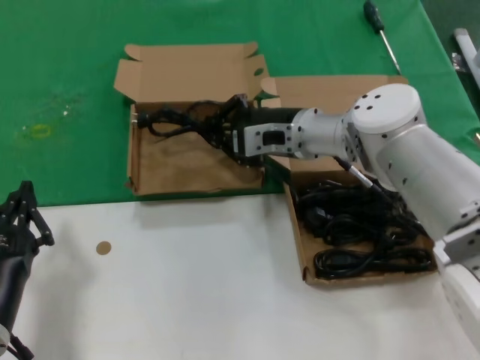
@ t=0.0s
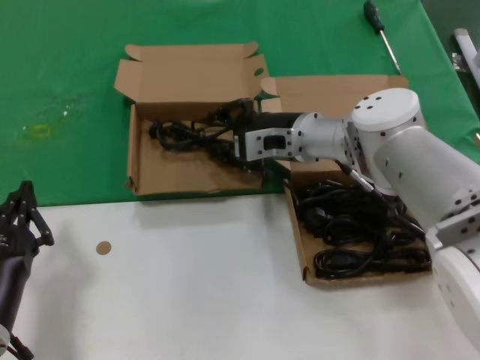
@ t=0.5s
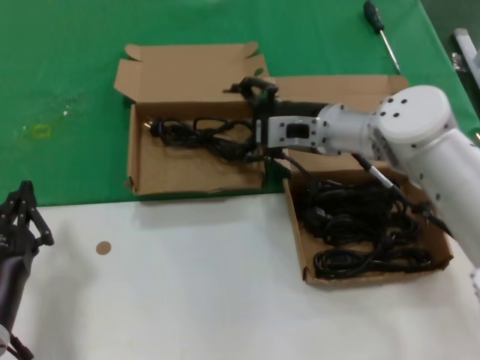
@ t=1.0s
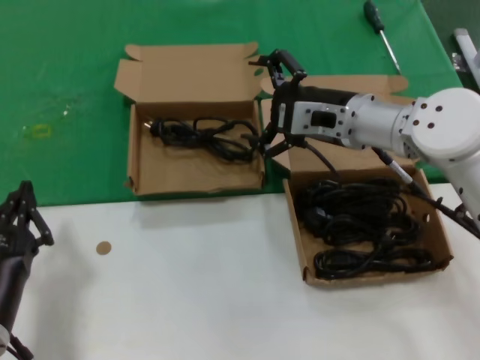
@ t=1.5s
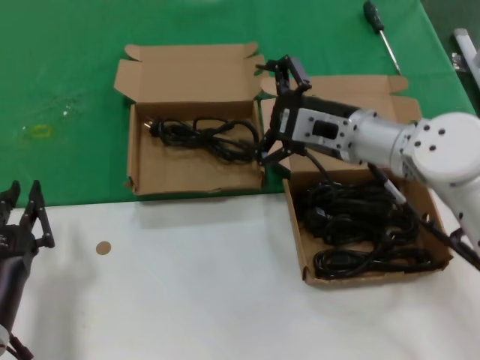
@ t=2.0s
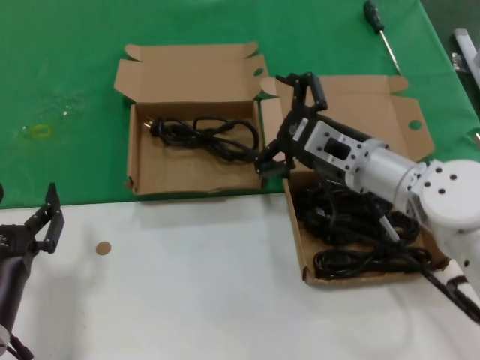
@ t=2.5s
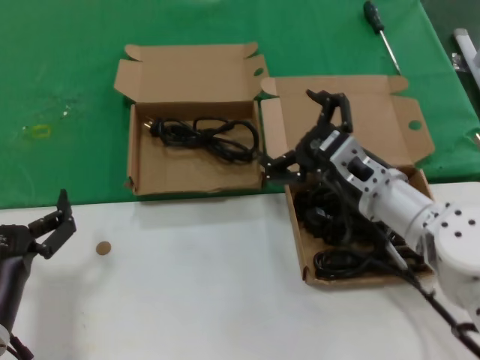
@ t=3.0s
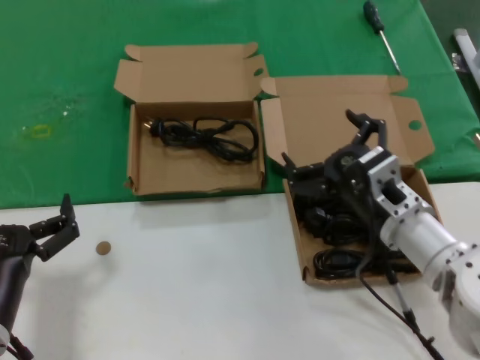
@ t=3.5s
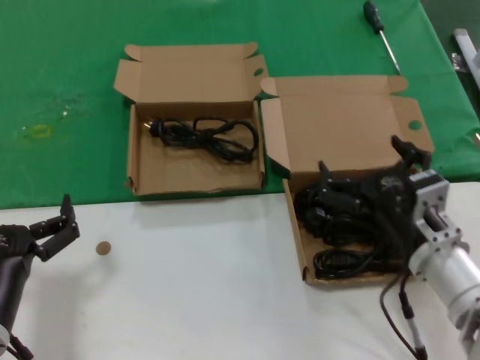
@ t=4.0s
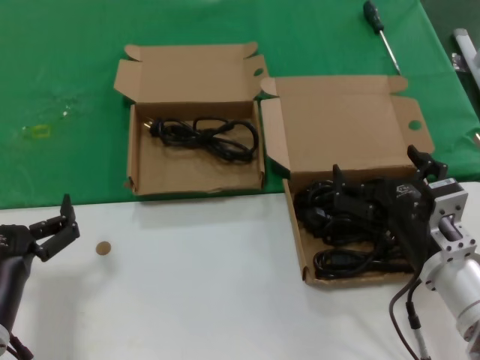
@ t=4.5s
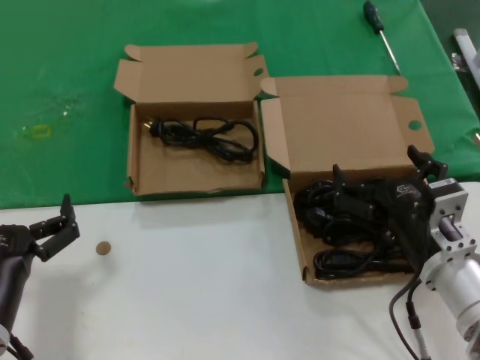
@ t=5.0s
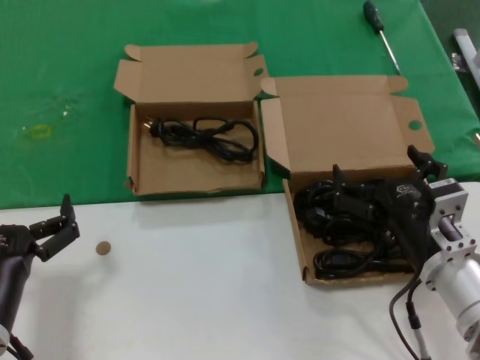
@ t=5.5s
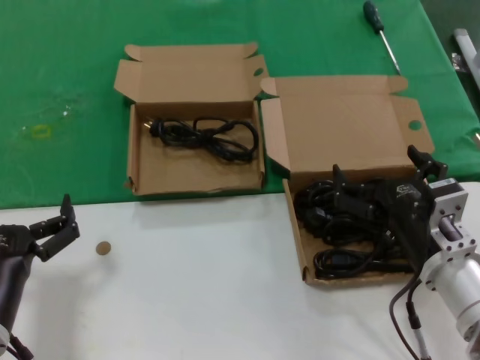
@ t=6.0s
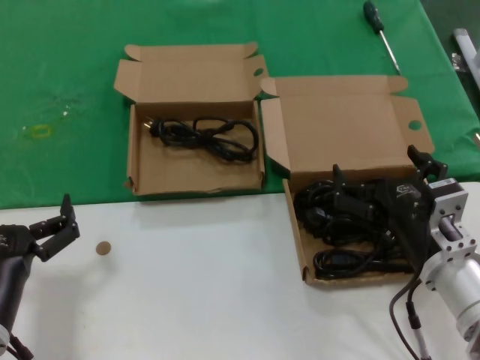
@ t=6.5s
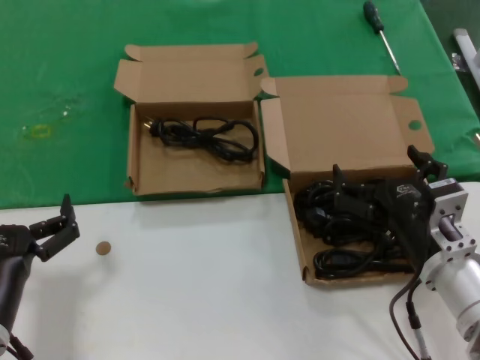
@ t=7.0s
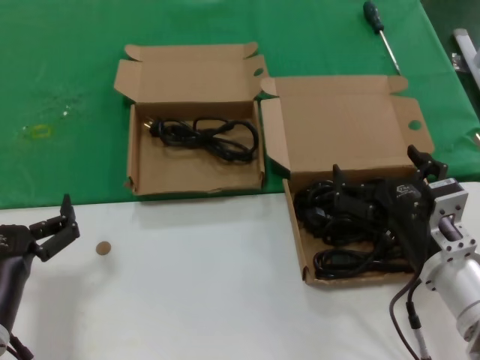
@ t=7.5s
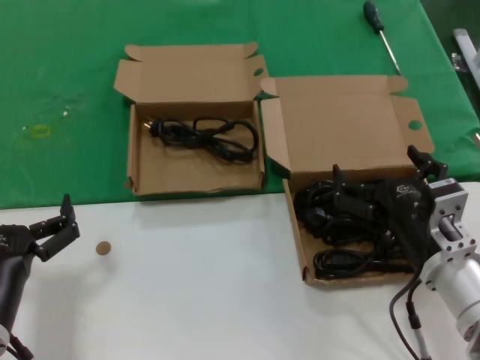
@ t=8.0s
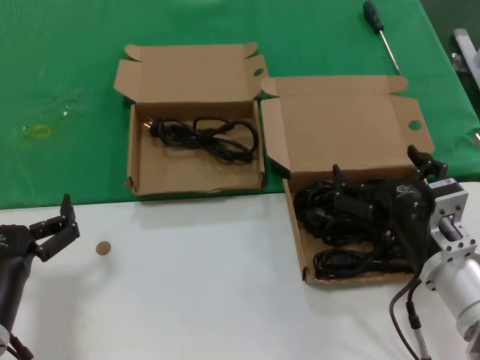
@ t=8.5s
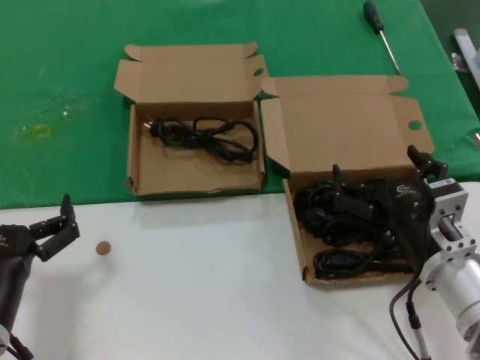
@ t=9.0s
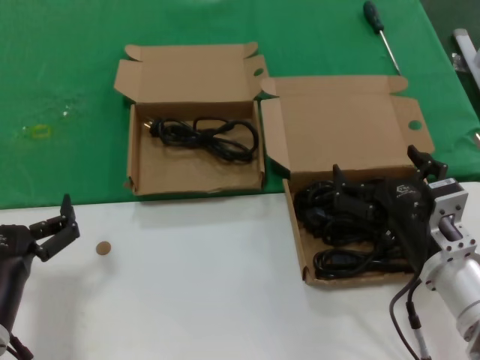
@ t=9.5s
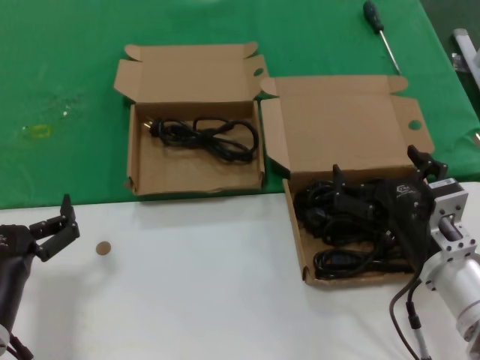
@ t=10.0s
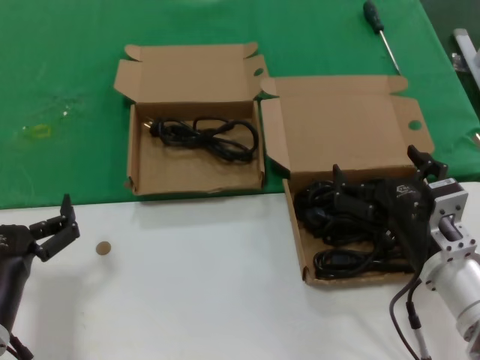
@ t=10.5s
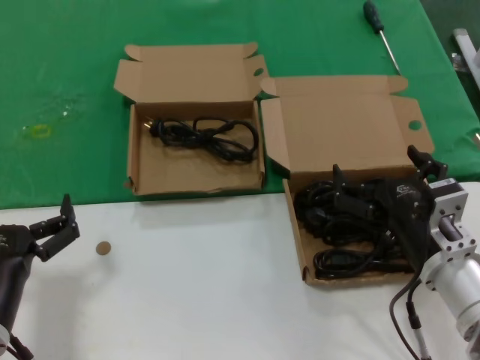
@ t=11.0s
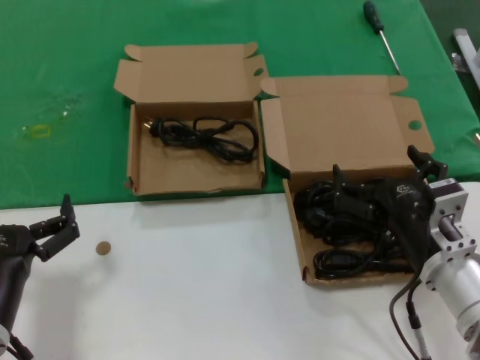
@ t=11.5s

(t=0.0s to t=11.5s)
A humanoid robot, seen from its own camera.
Task of the whole recording: take the parts from the box containing them and put them into an empty box.
t=0.0s - t=2.0s: The right hand heads backward and to the right, covering roughly 10 cm.
t=2.0s - t=4.0s: The right hand shifts some 20 cm backward and downward.
t=4.0s - t=6.0s: The hands make only small movements.
t=6.0s - t=11.5s: Neither hand changes place.

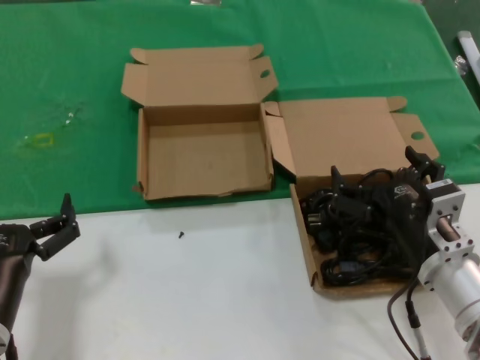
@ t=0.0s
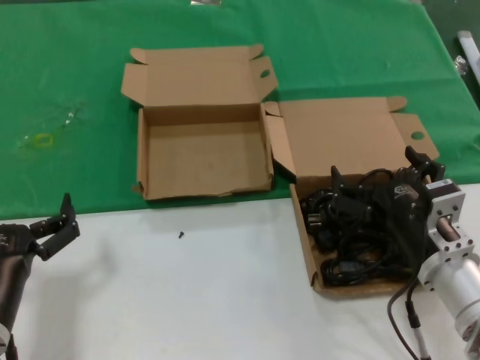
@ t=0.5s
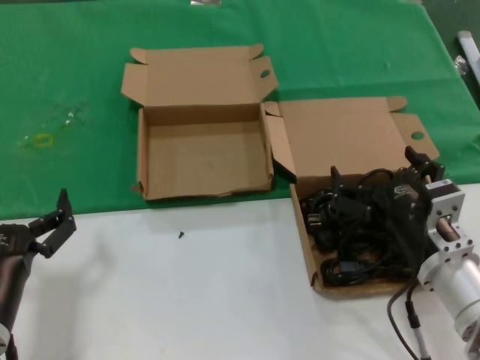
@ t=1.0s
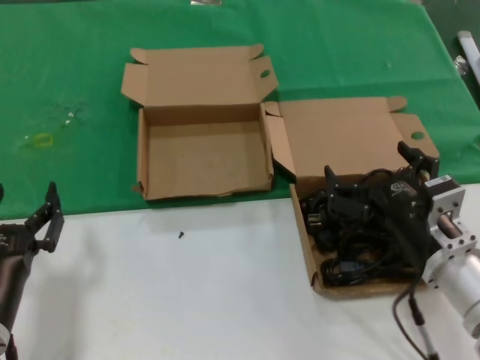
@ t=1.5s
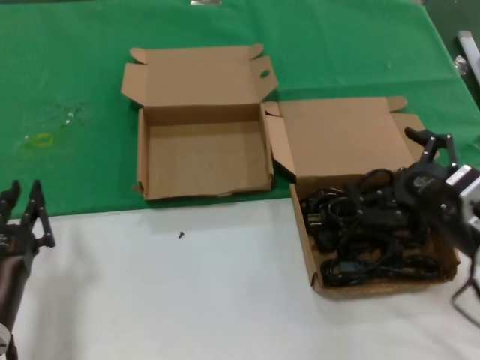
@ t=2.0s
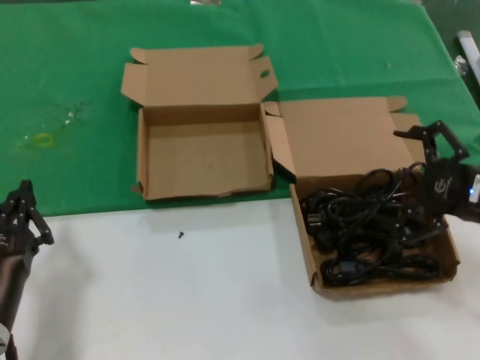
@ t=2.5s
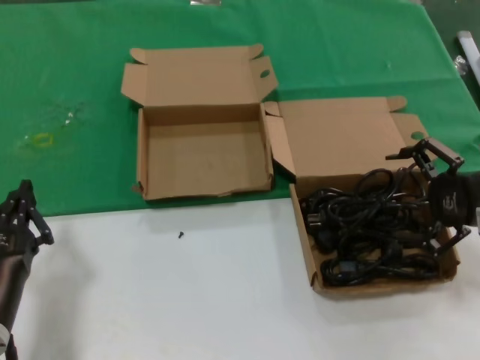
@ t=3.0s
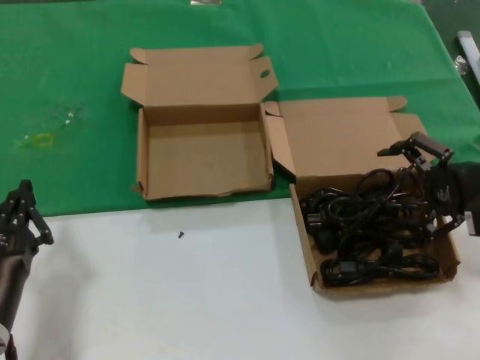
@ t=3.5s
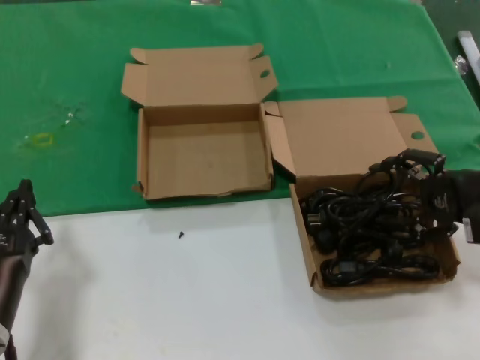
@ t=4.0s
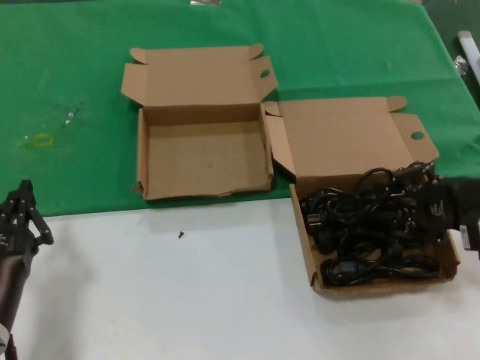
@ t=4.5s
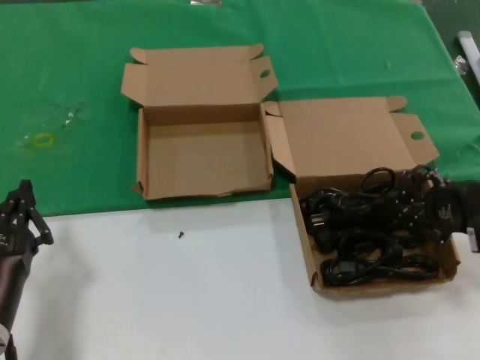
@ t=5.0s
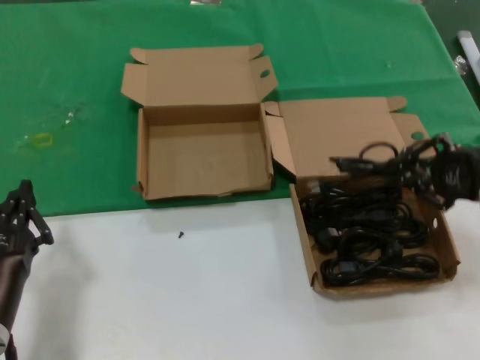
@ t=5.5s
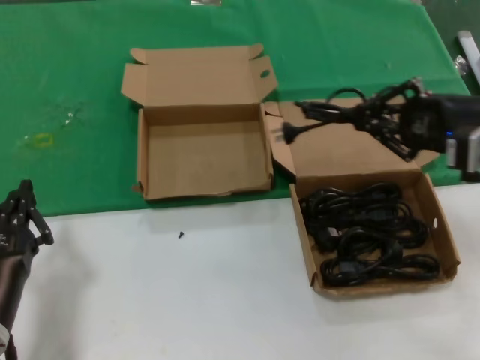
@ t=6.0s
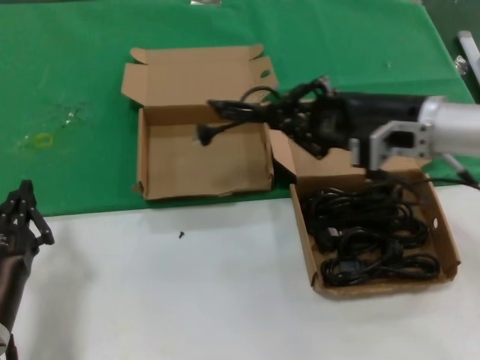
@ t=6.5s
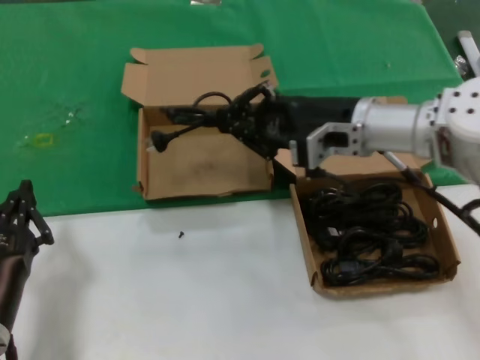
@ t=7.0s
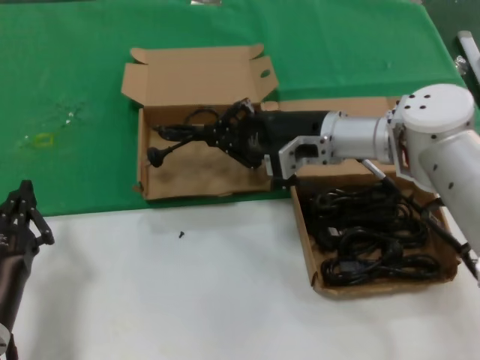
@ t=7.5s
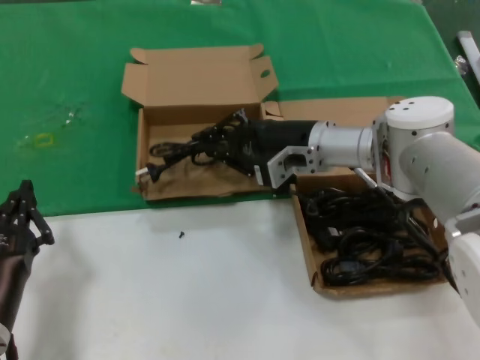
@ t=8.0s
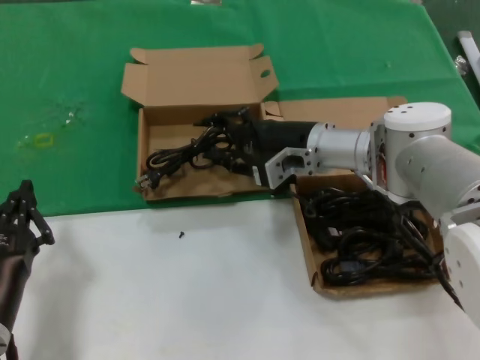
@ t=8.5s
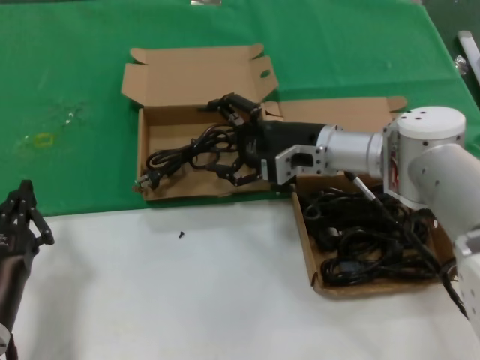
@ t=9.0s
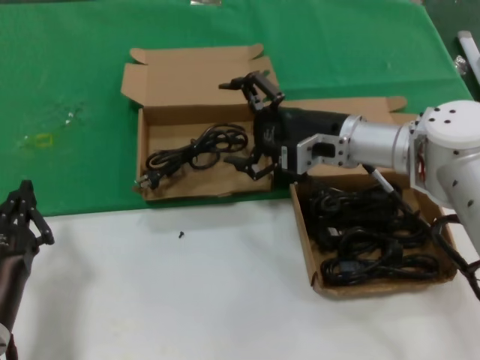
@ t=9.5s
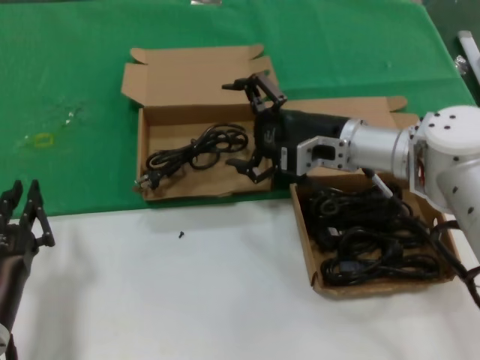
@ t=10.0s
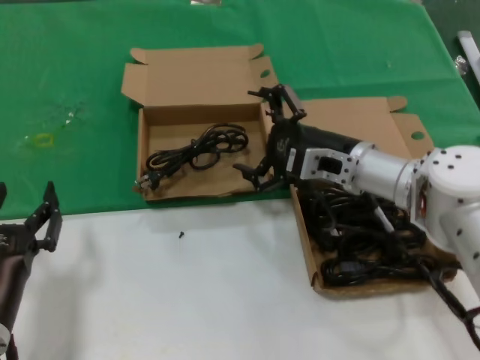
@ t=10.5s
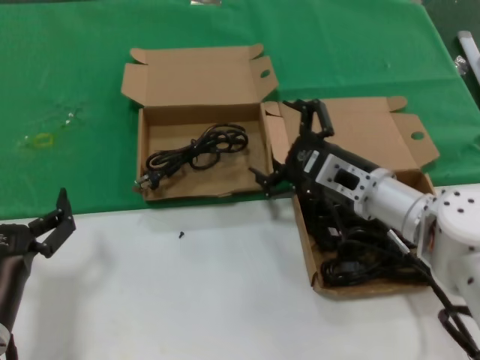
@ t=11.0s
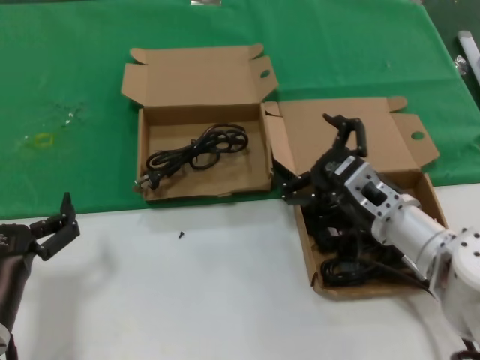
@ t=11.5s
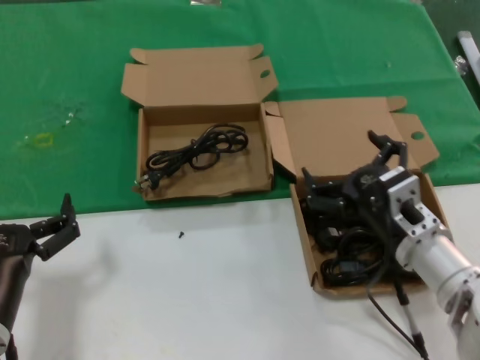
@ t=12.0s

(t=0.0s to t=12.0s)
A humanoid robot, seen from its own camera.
Task of the whole recording: take the parts from the box containing them and put them into an empty box.
Step, t=0.0s - t=4.5s: Grasp the data cable.
Step, t=5.0s - t=8.5s: Place the data cable in the another box.
t=0.0s - t=2.0s: The right hand shifts about 5 cm to the right.
t=2.0s - t=4.0s: The right hand shifts some 15 cm to the right, forward and upward.
t=4.0s - t=6.0s: The right hand heads upward, covering about 10 cm.
t=6.0s - t=8.0s: The right hand heads to the left, forward and downward, covering about 25 cm.
t=8.0s - t=10.0s: The hands move only a little.
t=10.0s - t=12.0s: The right hand travels backward and downward by some 20 cm.

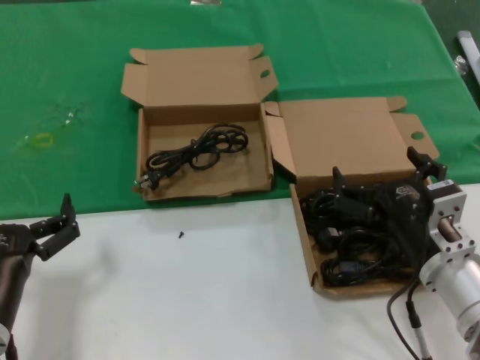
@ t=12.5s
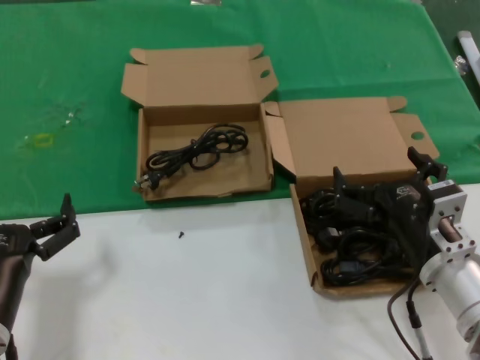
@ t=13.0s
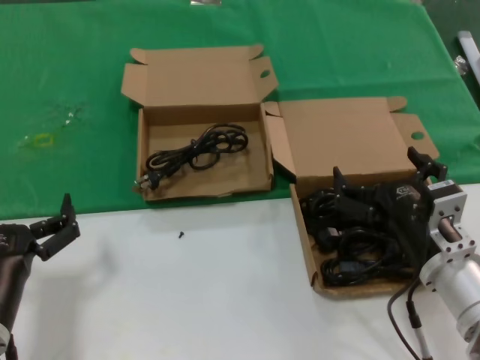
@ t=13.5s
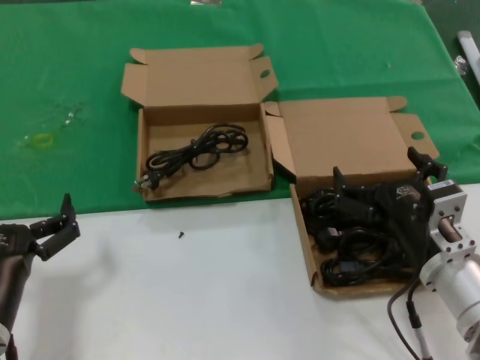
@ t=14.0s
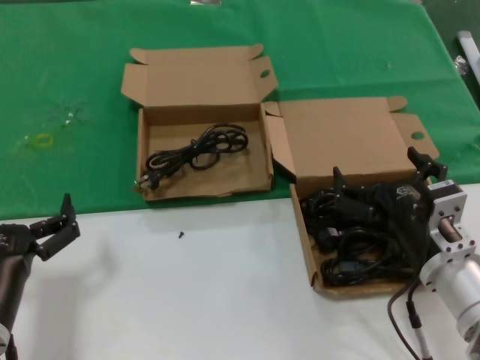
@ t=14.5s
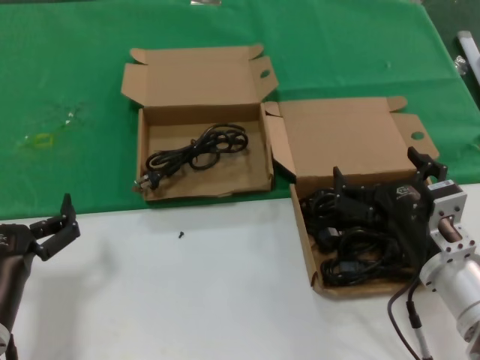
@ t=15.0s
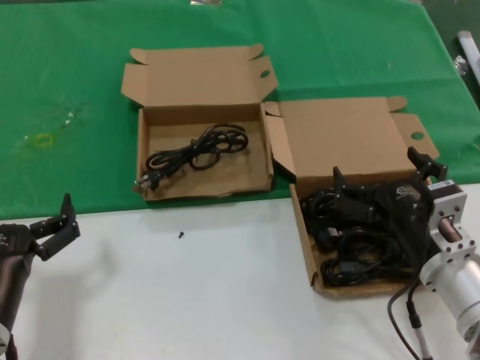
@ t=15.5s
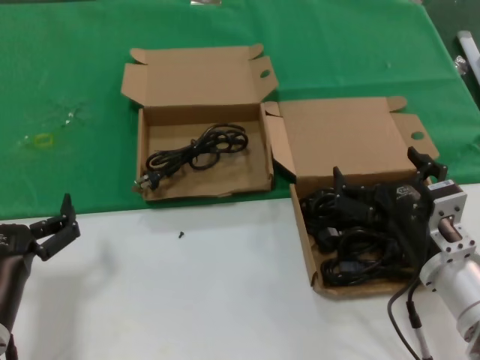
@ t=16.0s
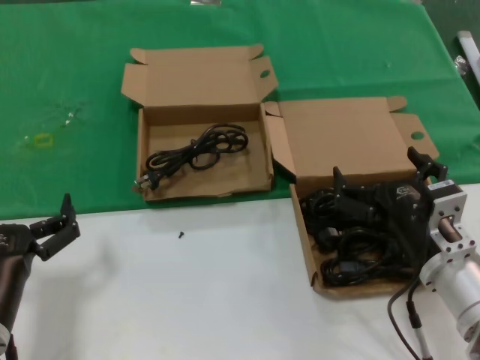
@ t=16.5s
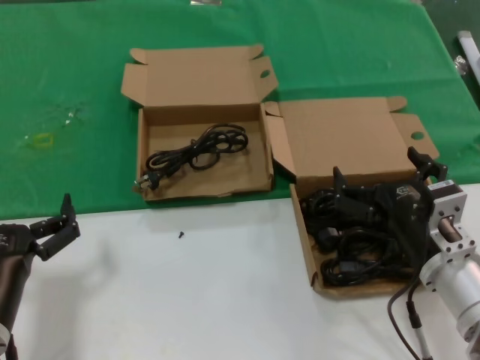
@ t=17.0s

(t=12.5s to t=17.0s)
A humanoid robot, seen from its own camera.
Task of the whole recording: take the parts from the box containing them and put them into an empty box.
t=12.5s - t=17.0s: The two hands keep their place.
